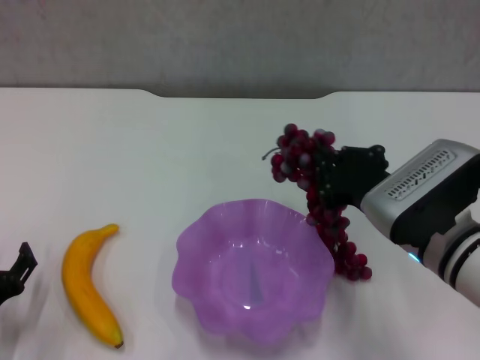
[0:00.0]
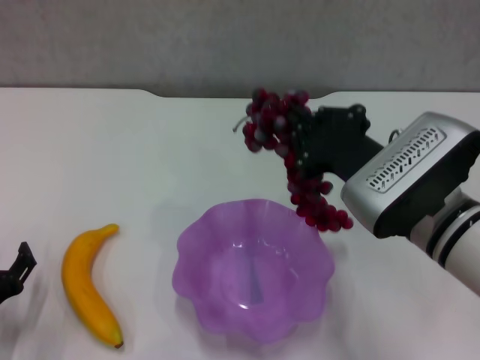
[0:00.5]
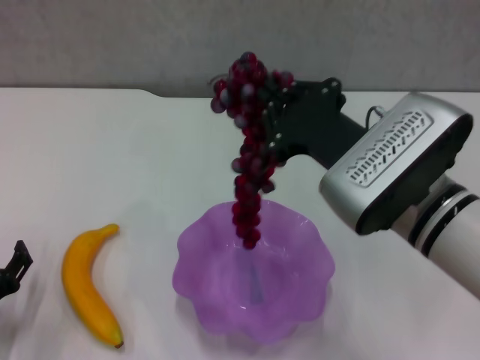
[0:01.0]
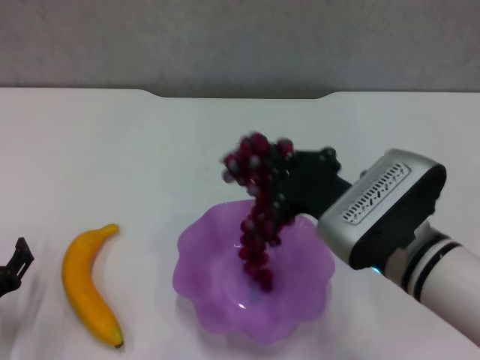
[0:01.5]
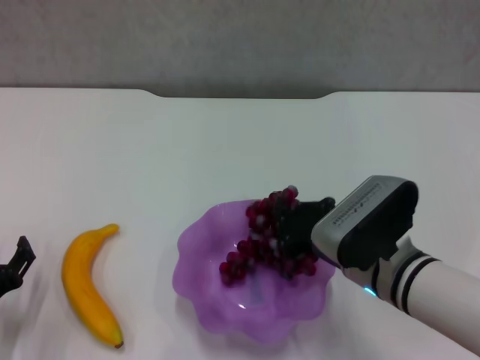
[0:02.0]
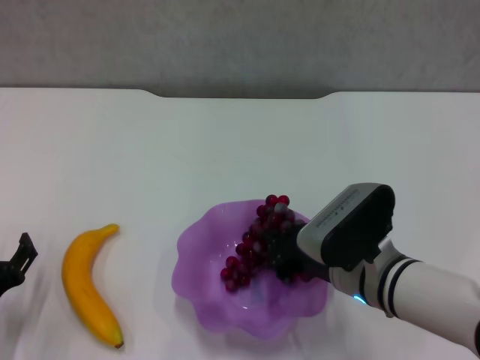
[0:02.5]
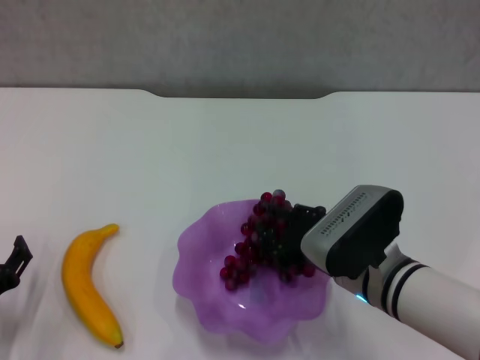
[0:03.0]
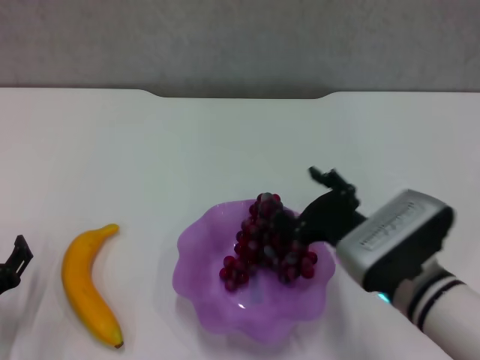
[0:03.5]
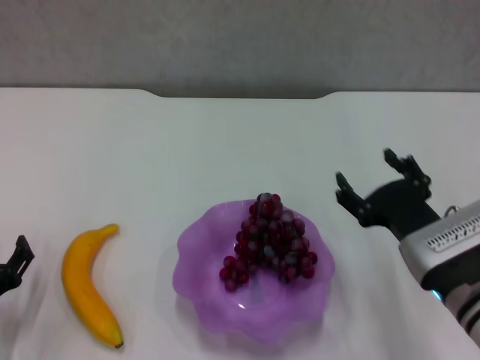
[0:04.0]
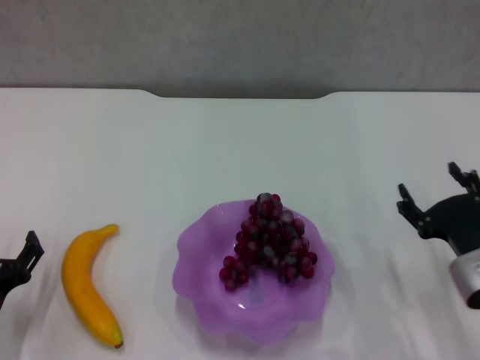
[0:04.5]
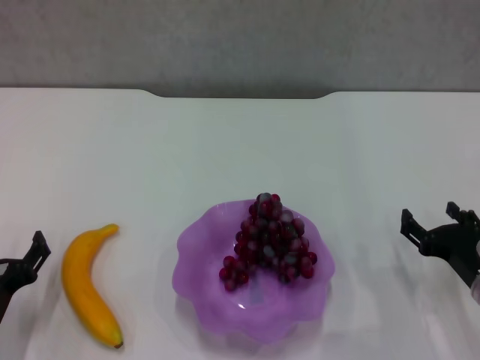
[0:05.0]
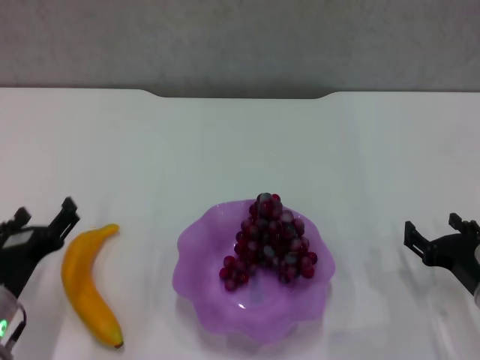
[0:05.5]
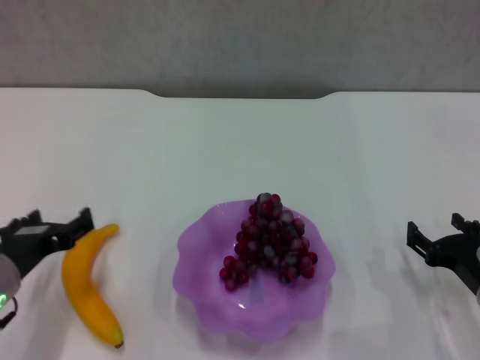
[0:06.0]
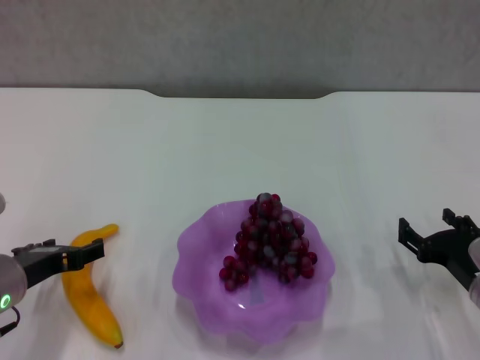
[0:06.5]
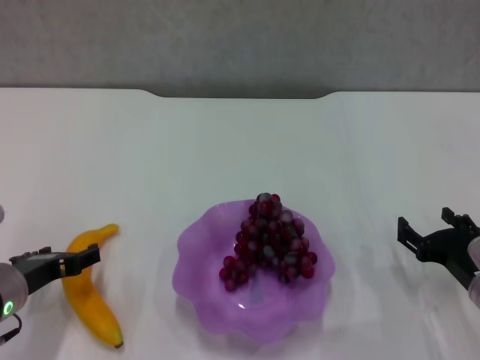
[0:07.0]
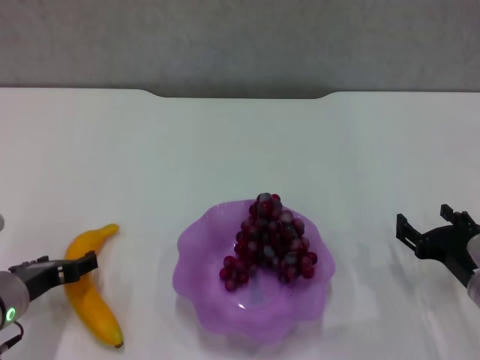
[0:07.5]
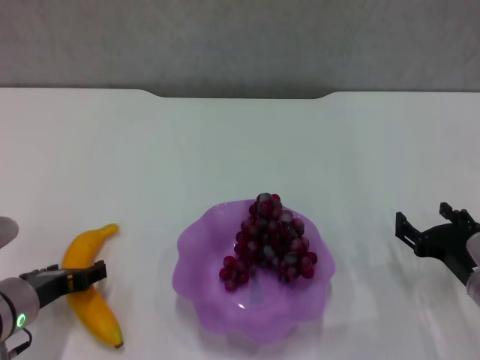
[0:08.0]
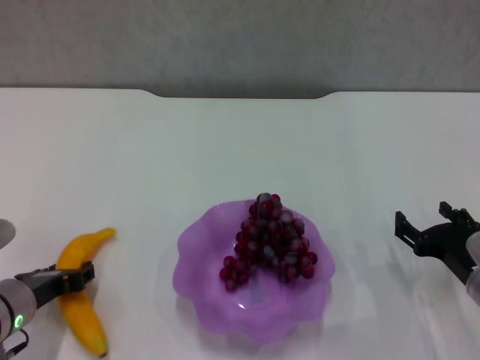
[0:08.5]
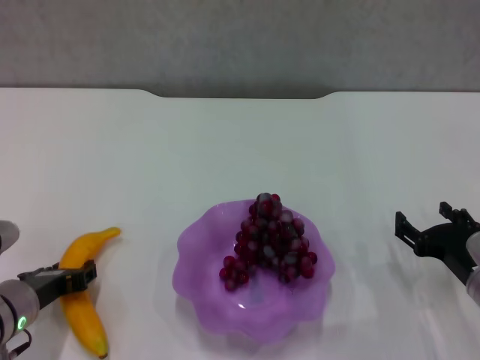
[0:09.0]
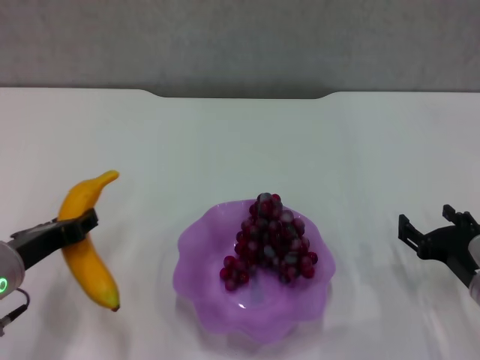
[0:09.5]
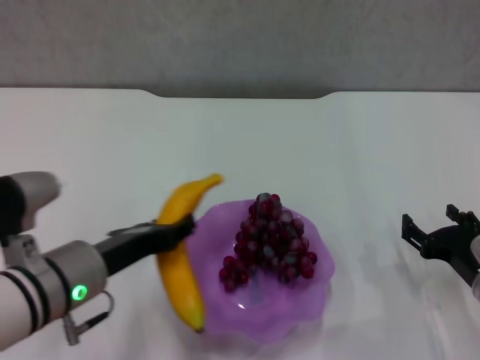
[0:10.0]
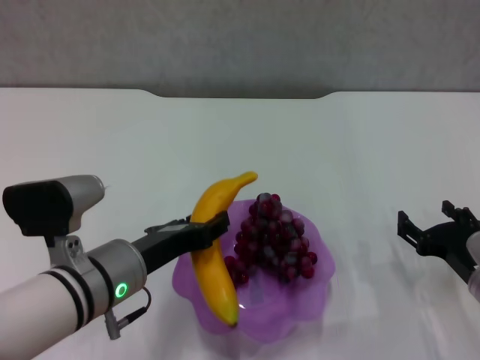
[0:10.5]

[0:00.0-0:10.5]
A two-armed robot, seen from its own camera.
Step, 0:00.0 to 0:03.5: Place the grape in the purple plate with right gripper.
Step, 0:04.0 to 0:08.5: Grasp the banana with left gripper.
0:00.0 to 0:02.0: The right gripper moves about 5 cm.
0:02.0 to 0:04.0: The right gripper moves to the right, roughly 5 cm, and opens.
0:04.0 to 0:06.5: The right gripper moves to the right and downward, approximately 10 cm. The left gripper goes roughly 10 cm upward and forward.
0:06.5 to 0:08.5: The grippers move only a little.
0:08.5 to 0:10.5: The left gripper goes about 10 cm to the right and upward, and closes its fingers.

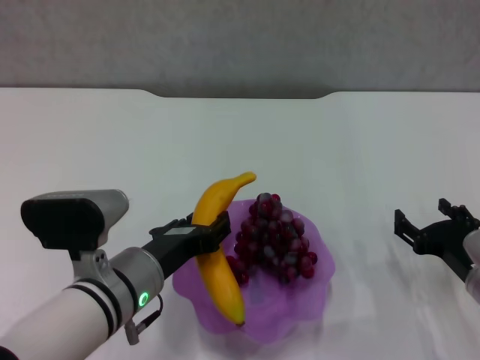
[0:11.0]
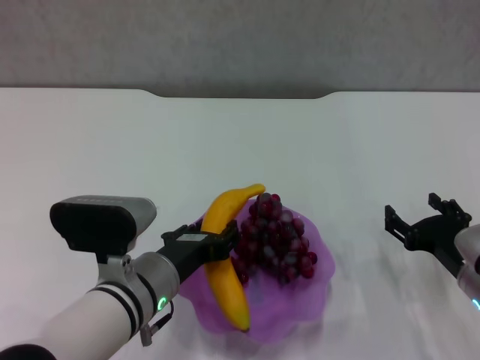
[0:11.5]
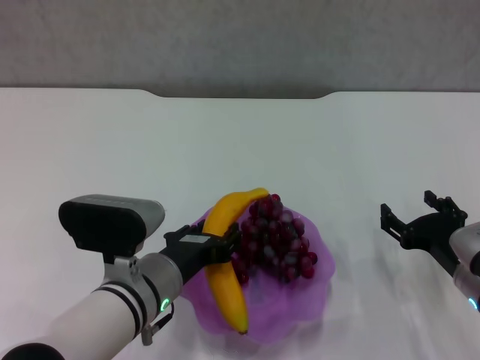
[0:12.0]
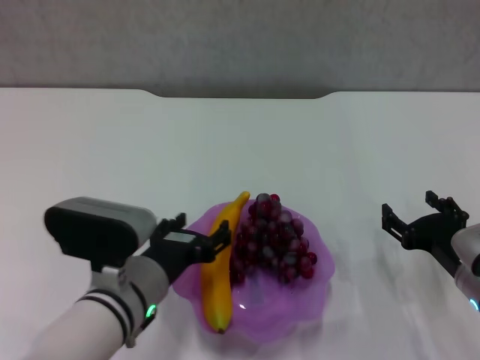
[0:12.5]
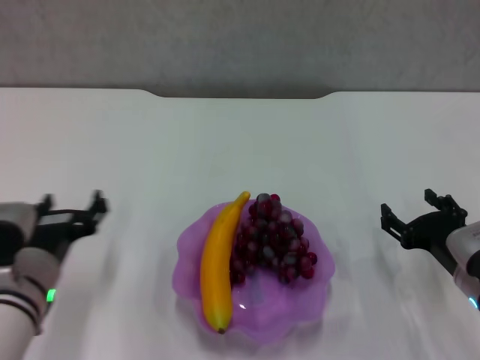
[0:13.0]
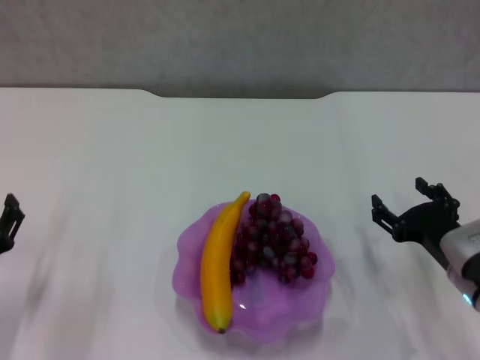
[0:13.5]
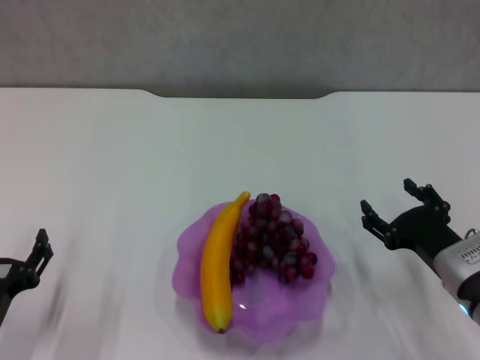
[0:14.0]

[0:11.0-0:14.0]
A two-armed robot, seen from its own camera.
0:11.0 to 0:12.5: The grippers move only a little.
0:12.5 to 0:14.0: The left gripper goes some 15 cm to the left.
